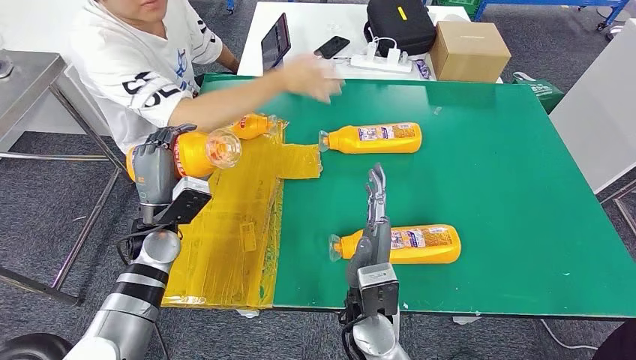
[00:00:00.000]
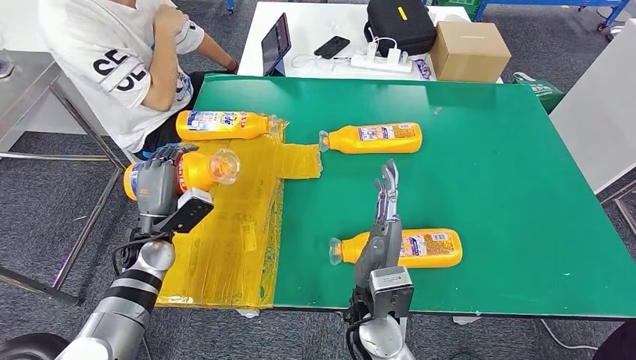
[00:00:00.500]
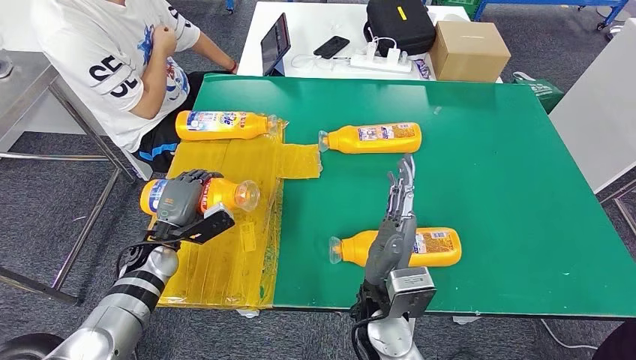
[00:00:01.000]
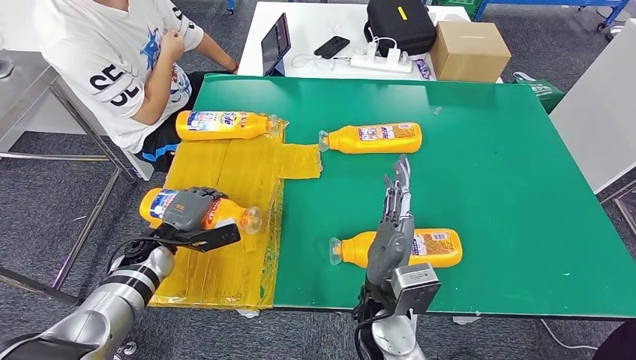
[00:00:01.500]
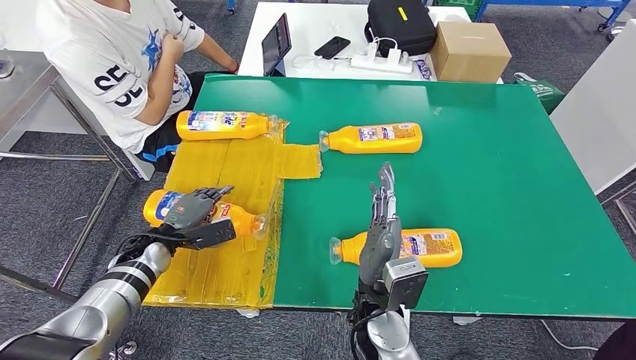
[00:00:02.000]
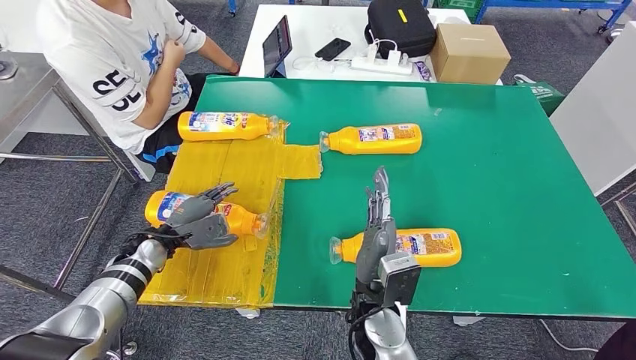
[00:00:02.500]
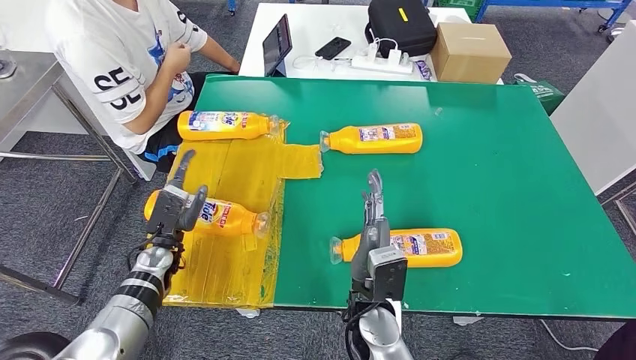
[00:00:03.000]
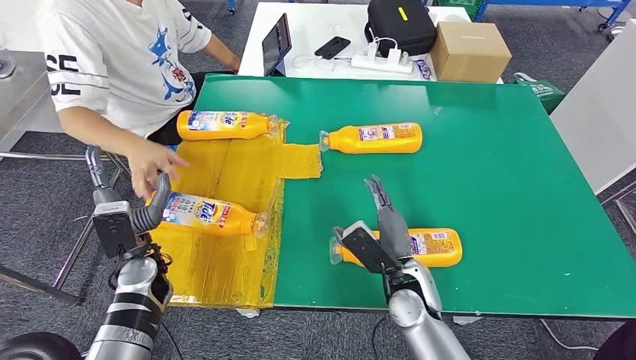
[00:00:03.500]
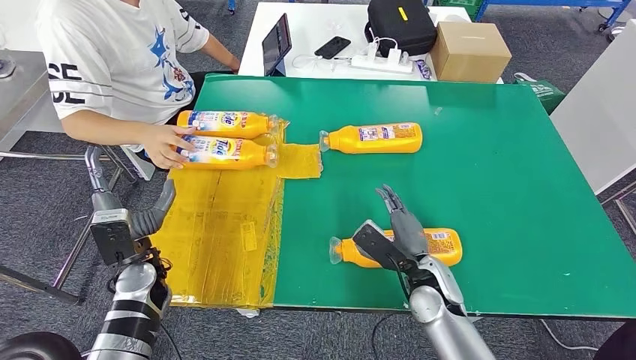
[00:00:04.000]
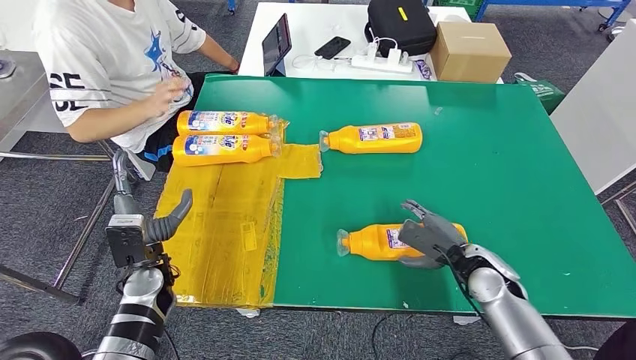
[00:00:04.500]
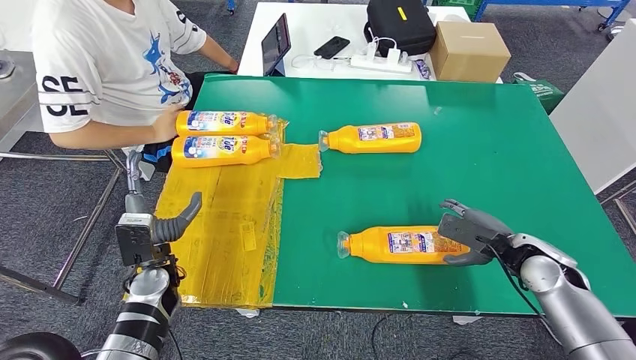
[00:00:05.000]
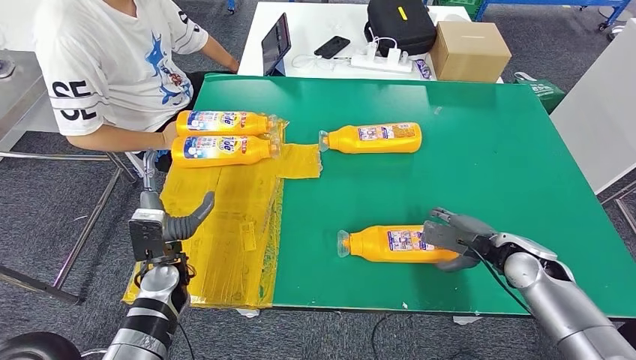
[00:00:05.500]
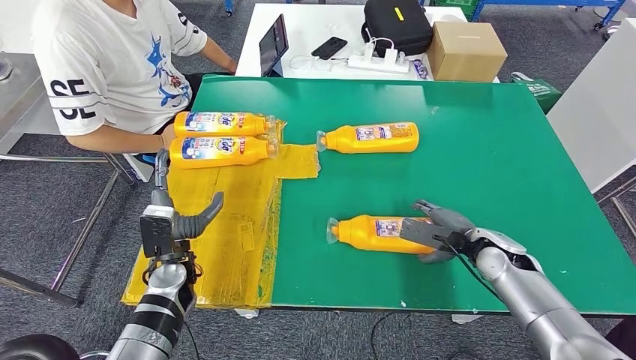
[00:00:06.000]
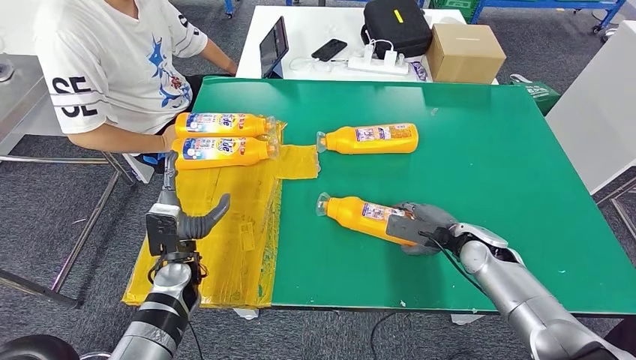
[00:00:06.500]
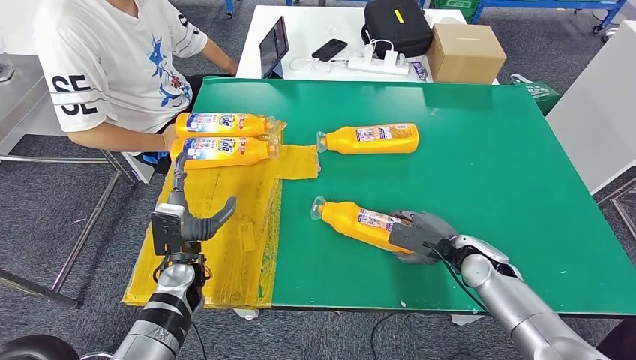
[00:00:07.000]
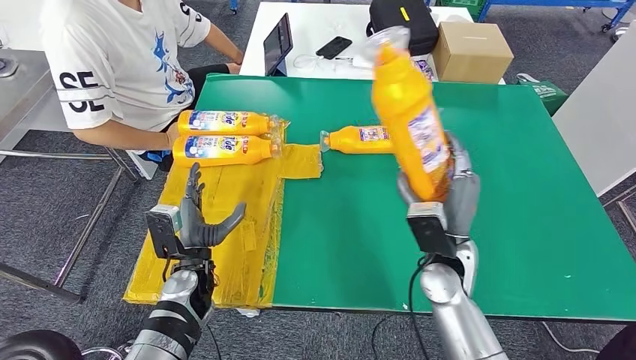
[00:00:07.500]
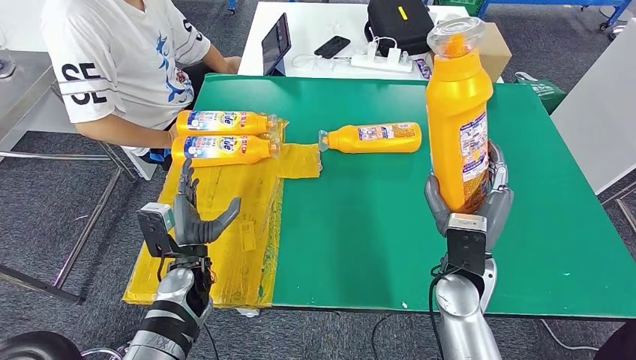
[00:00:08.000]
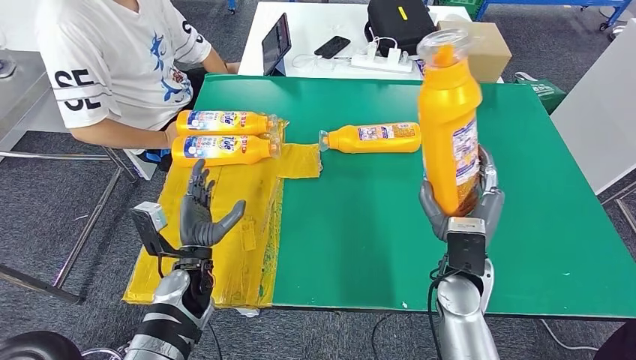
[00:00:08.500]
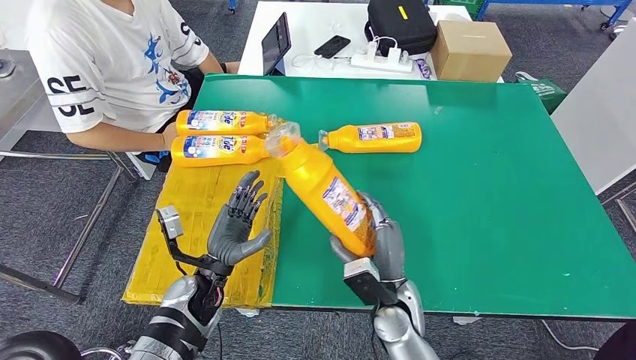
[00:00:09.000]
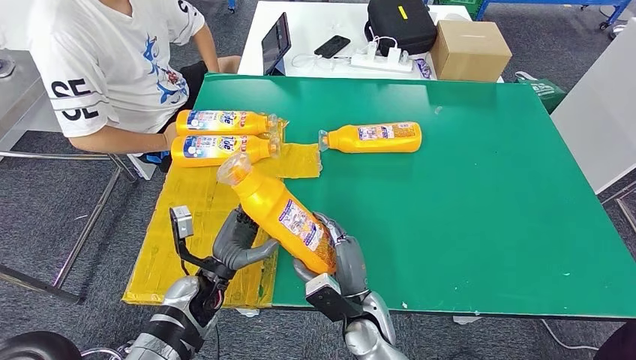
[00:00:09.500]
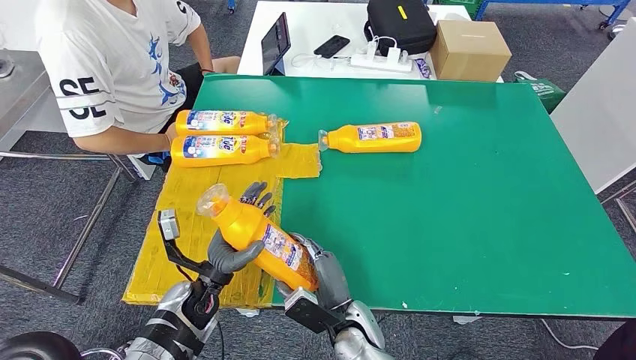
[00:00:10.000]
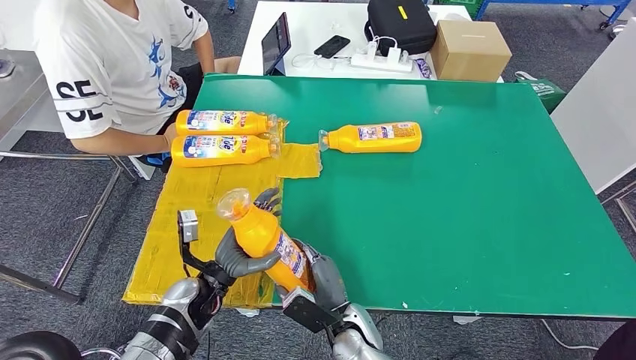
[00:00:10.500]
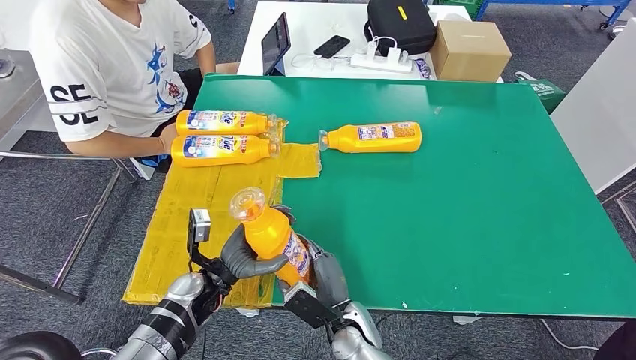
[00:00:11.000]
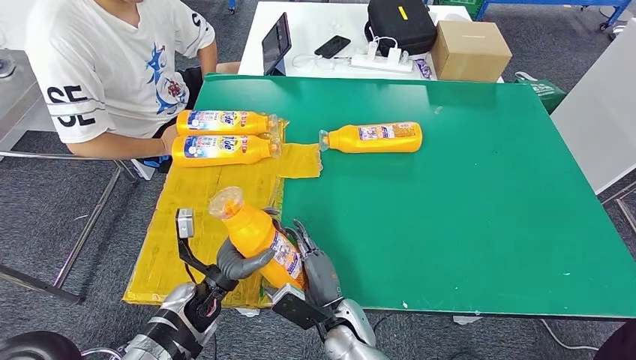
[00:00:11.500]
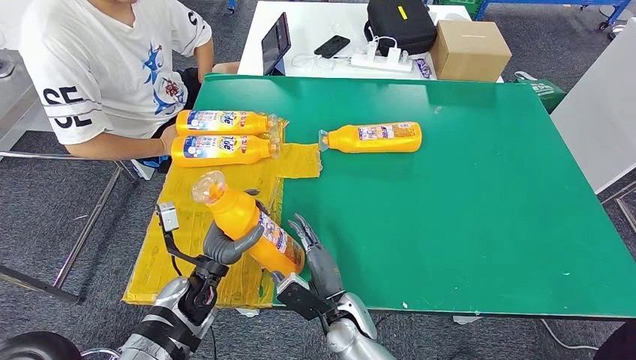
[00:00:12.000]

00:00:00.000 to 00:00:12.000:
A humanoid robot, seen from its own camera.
Step, 00:00:00.000 to 00:00:02.500: Flip the bottle to face forward.
Step, 00:00:03.000 to 00:00:08.000: Pick up the bottle from the table.
00:00:02.000 to 00:00:04.000: The right hand moves to the right, forward and downward, some 15 cm. Meanwhile the left hand moves backward, roughly 5 cm.

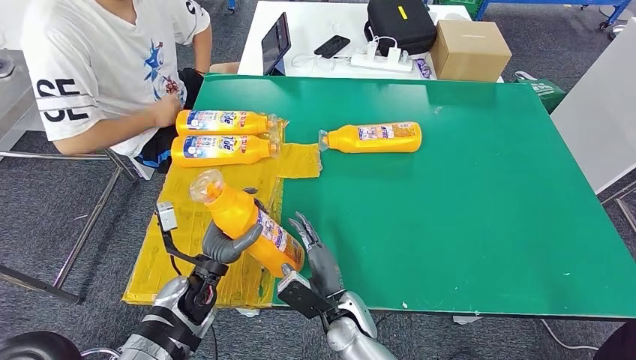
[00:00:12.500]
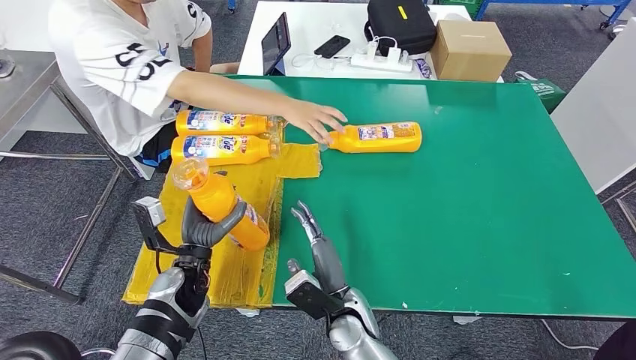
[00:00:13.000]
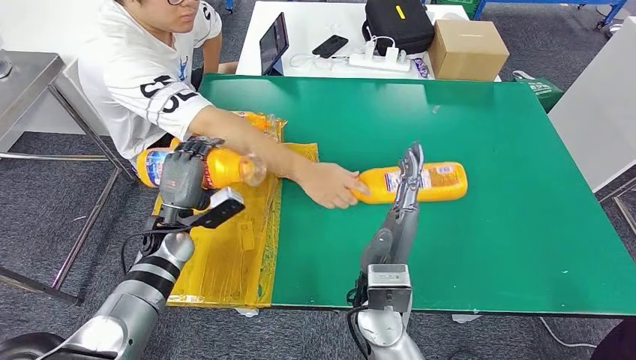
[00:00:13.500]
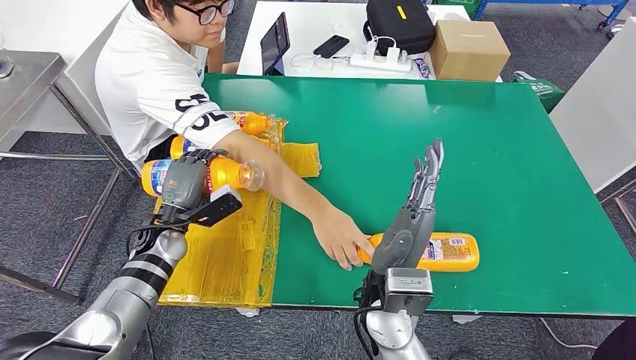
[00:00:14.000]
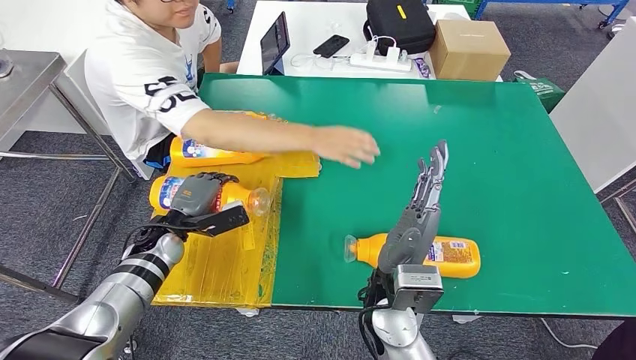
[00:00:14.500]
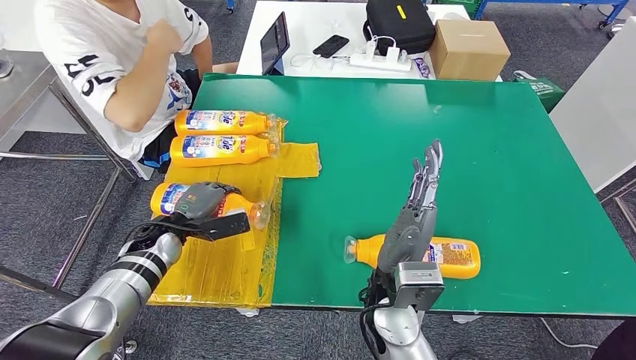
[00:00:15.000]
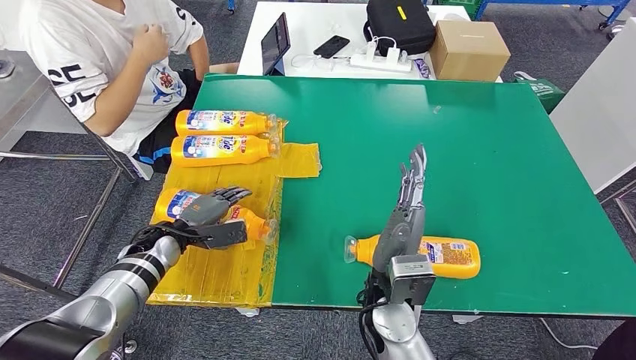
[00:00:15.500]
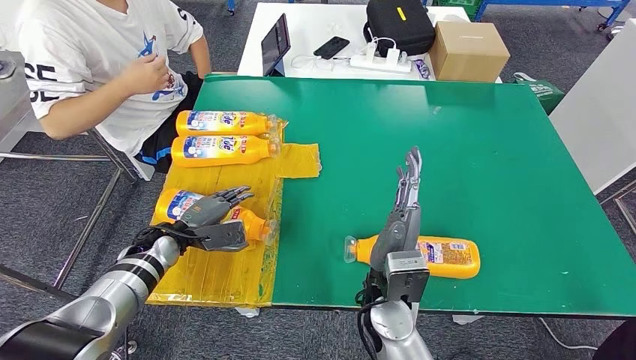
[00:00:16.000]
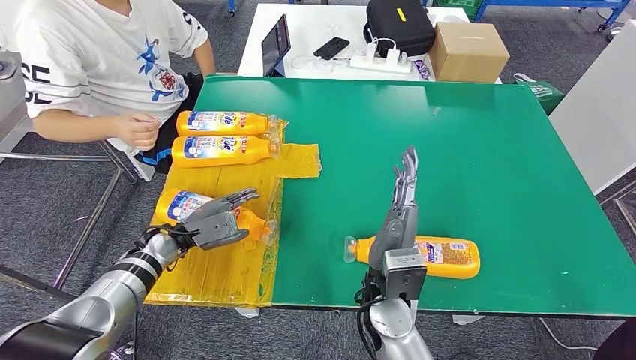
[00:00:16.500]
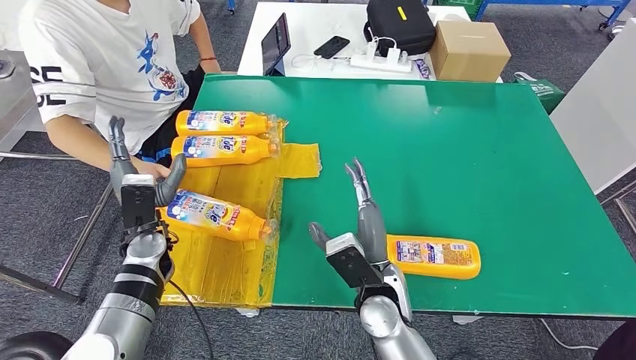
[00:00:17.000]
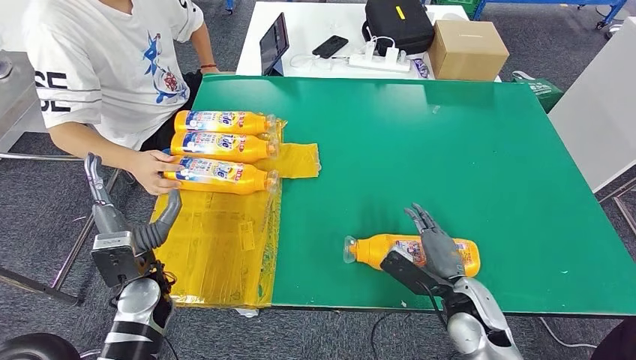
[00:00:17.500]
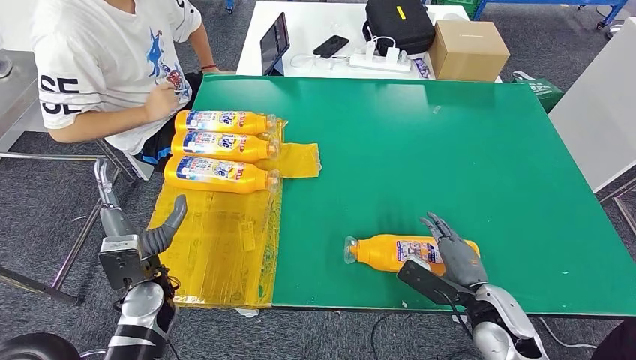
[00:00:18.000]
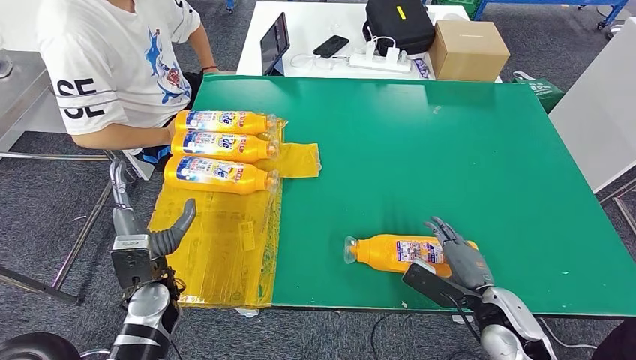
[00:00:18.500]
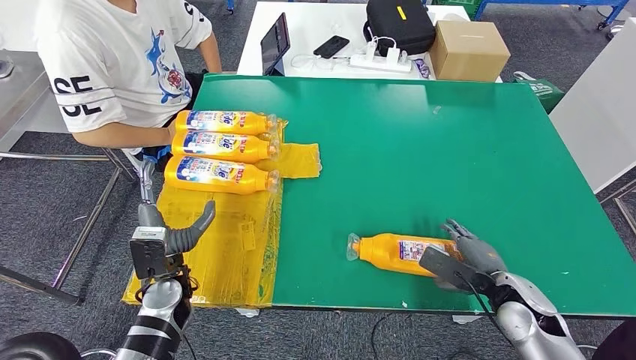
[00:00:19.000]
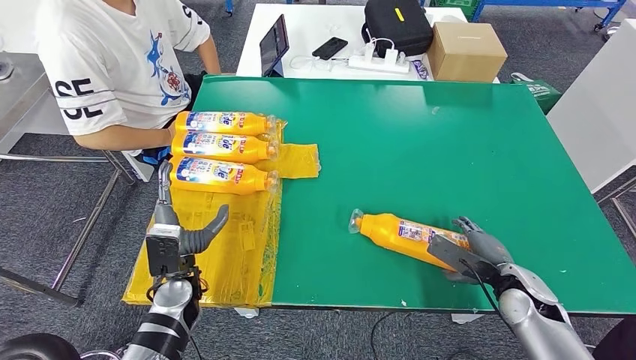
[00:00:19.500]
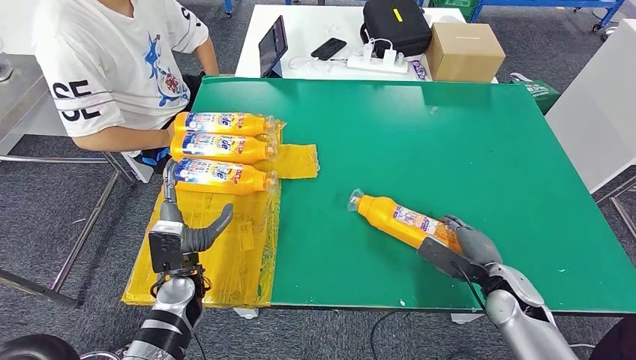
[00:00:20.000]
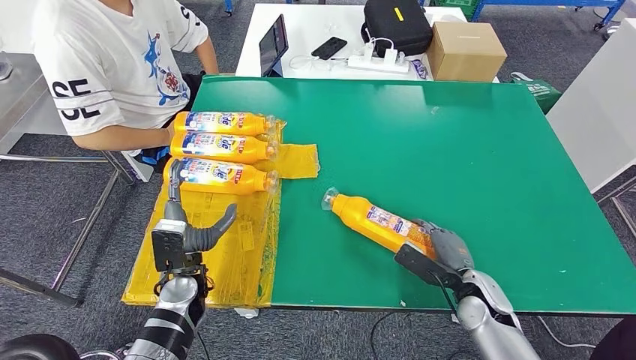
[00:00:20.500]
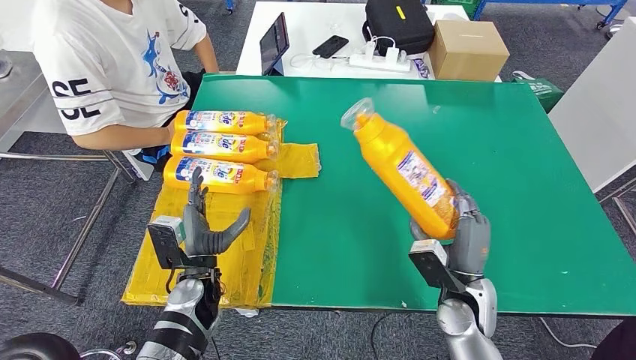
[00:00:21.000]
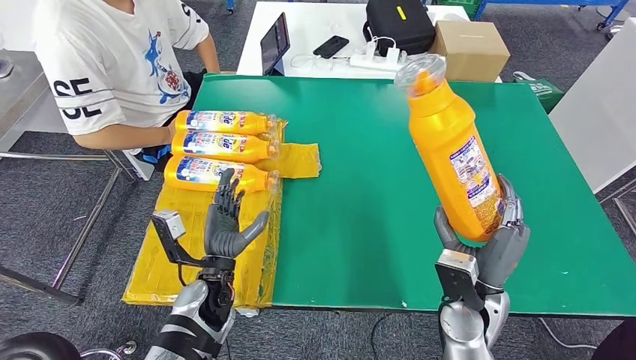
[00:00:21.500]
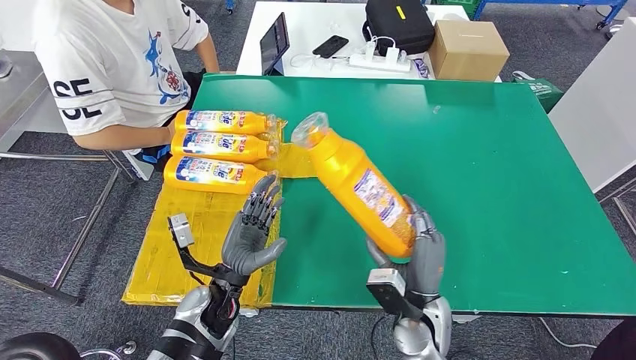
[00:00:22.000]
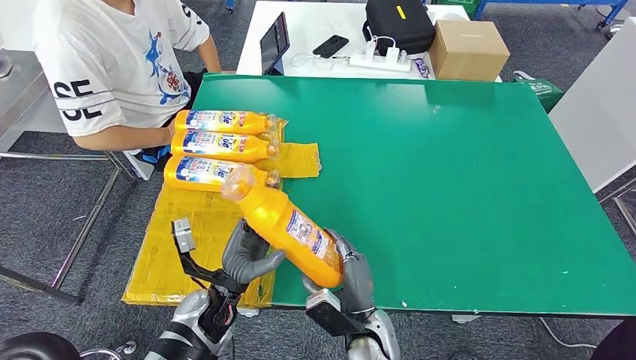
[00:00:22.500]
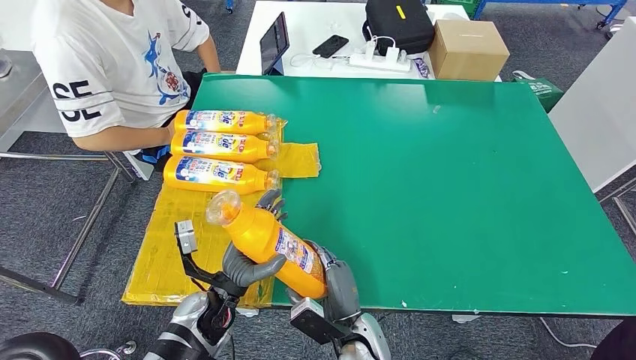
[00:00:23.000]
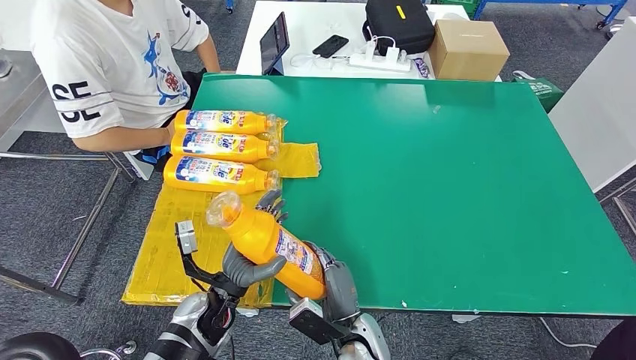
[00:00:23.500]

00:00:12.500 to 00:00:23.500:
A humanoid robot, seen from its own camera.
Step, 00:00:12.500 to 00:00:16.000: Flip the bottle to face forward.
Step, 00:00:17.000 to 00:00:21.500: Pick up the bottle from the table.
00:00:21.500 to 00:00:23.500: The right hand moves to the left and downward, some 20 cm.
